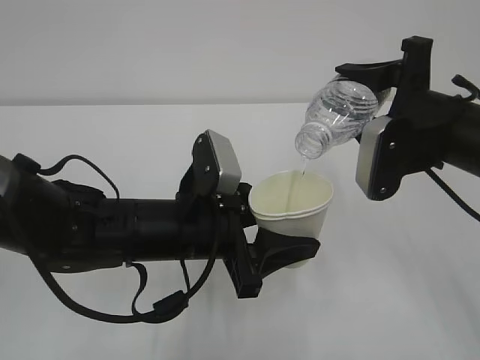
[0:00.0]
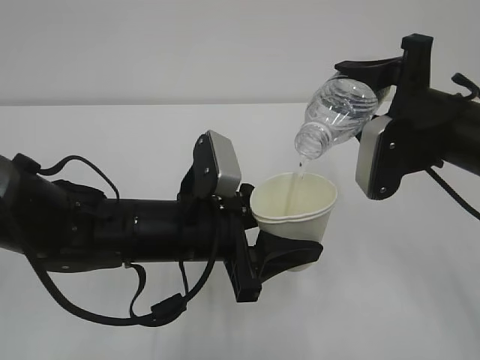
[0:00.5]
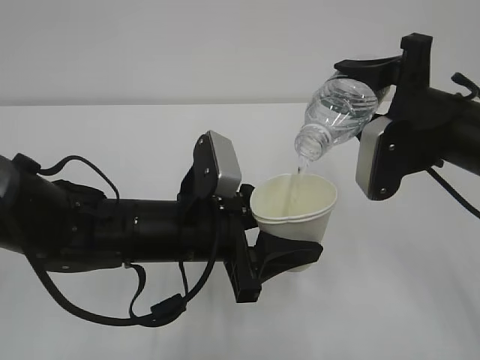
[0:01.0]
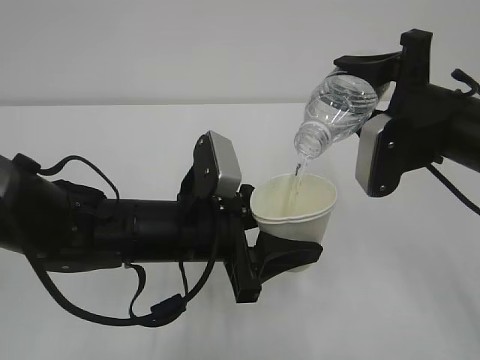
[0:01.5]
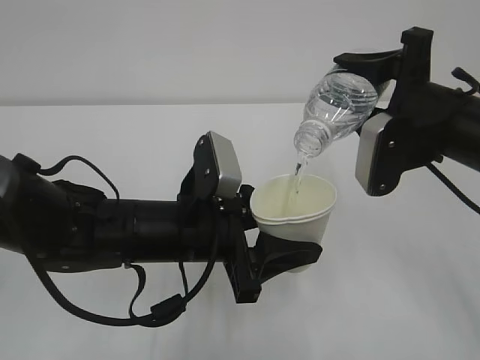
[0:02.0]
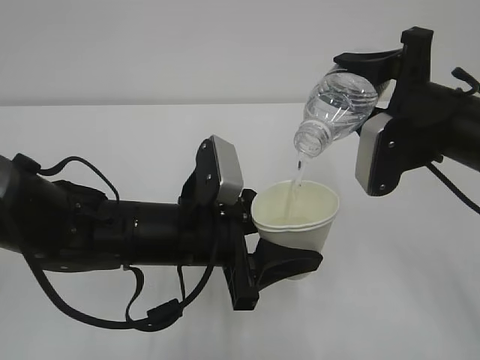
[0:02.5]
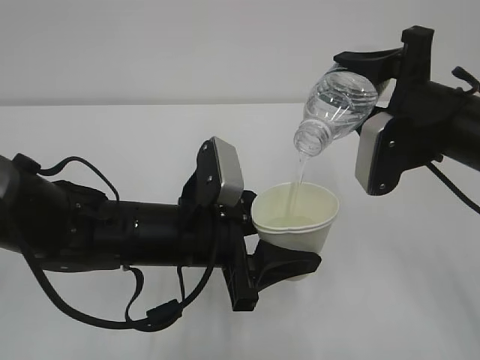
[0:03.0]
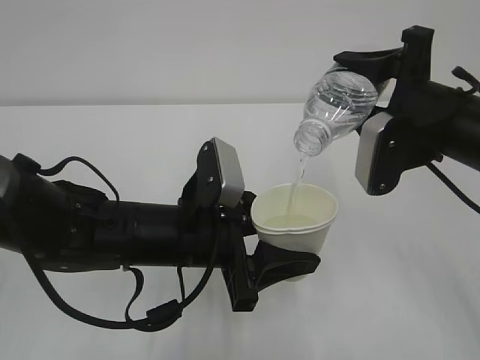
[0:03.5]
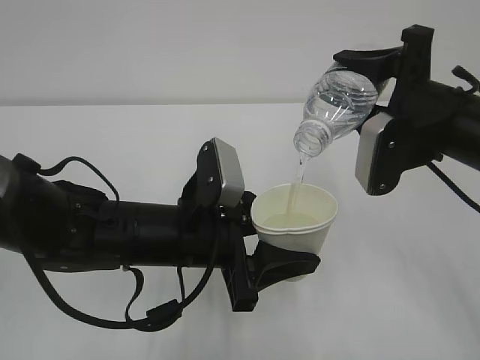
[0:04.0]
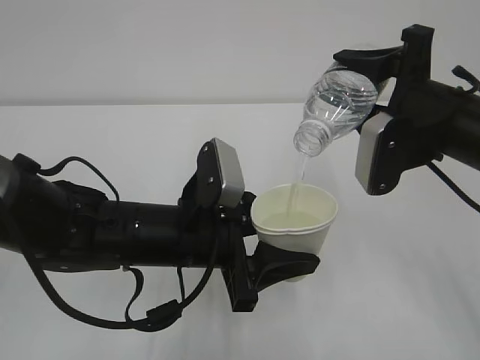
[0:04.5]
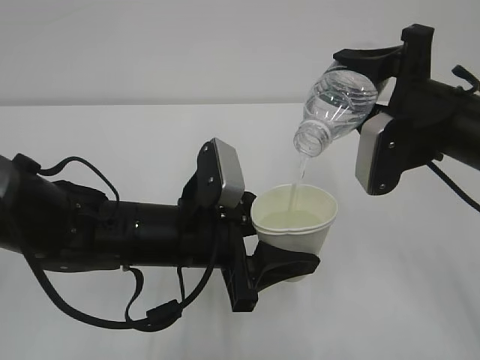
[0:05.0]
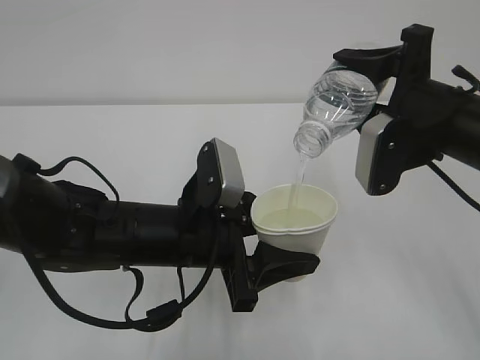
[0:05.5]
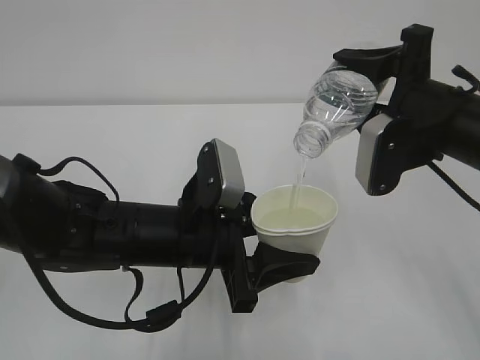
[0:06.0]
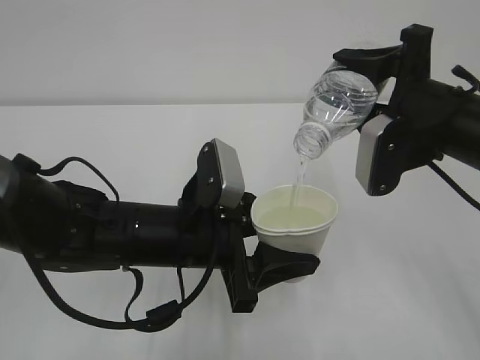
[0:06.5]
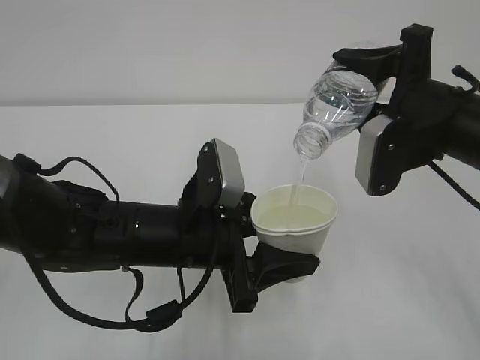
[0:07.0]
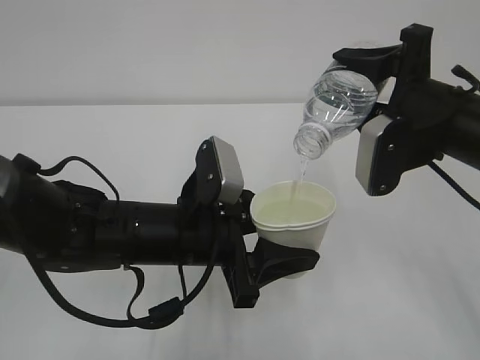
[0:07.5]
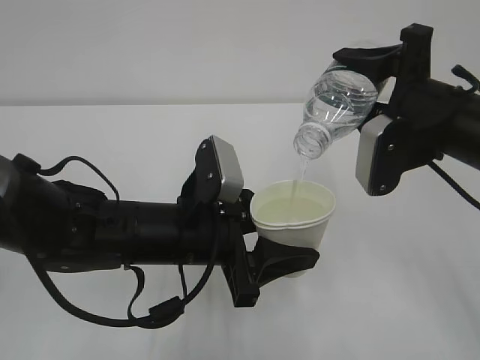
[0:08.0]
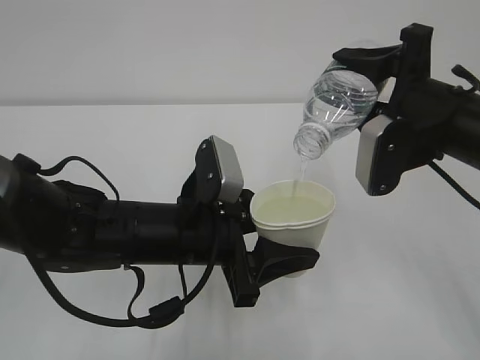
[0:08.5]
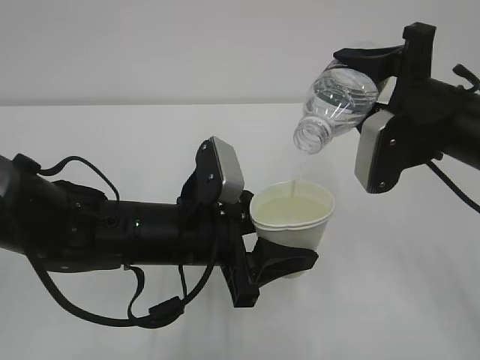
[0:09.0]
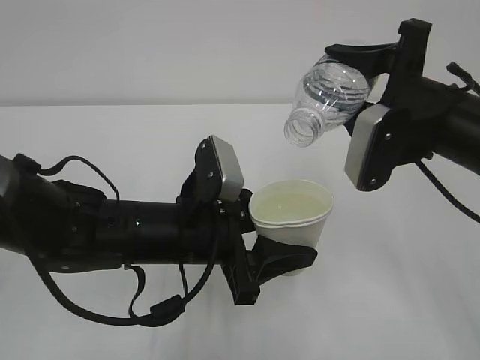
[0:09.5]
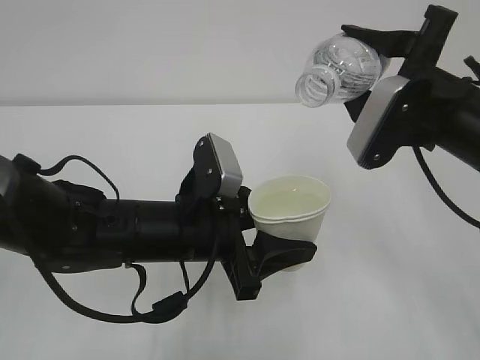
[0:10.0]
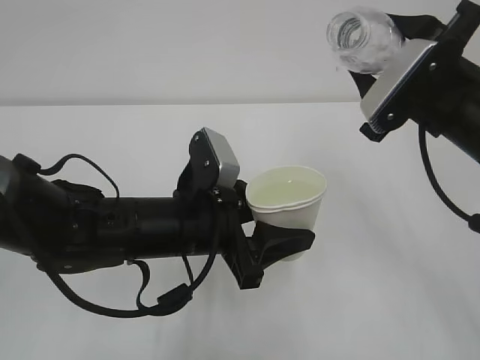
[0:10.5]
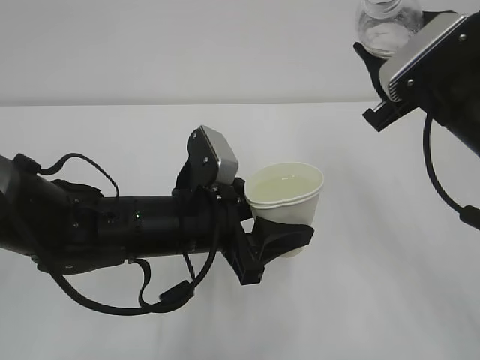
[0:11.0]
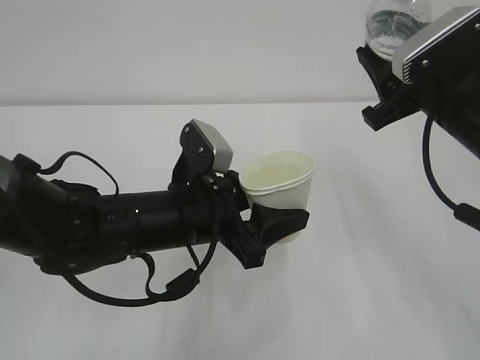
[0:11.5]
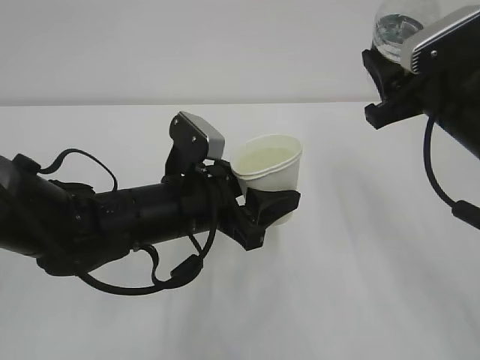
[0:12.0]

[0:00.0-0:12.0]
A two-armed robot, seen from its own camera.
0:00.0 to 0:02.0: Both grippers stay about where they are.
0:02.0 to 0:08.0: Both grippers stay about where they are.
0:08.0 to 0:10.0: The grippers stay close to where they were, moving slightly.

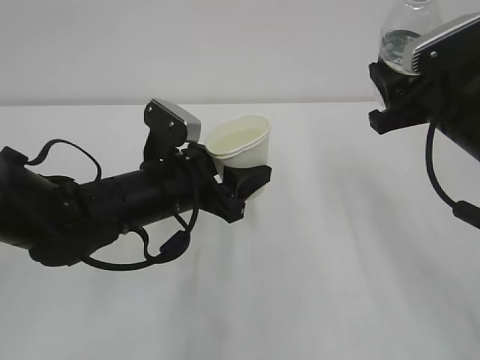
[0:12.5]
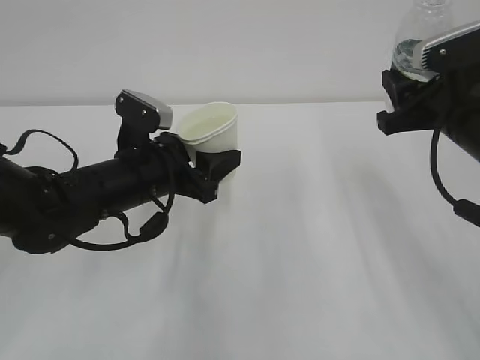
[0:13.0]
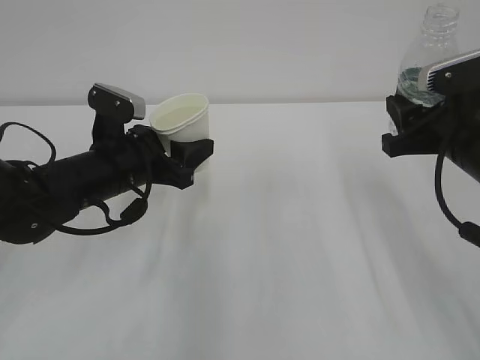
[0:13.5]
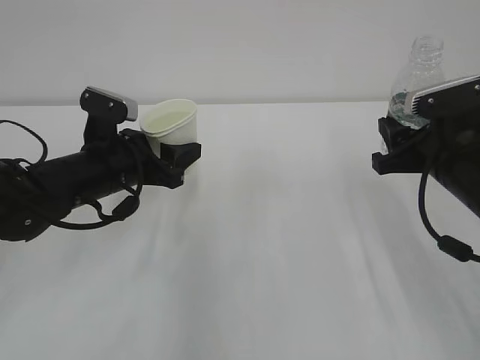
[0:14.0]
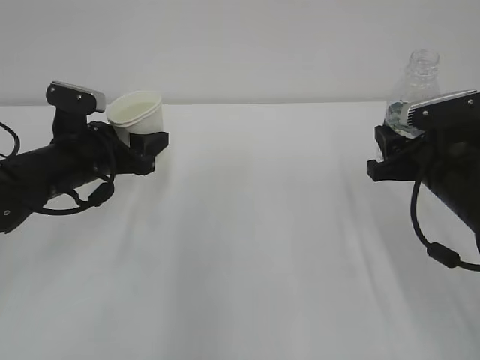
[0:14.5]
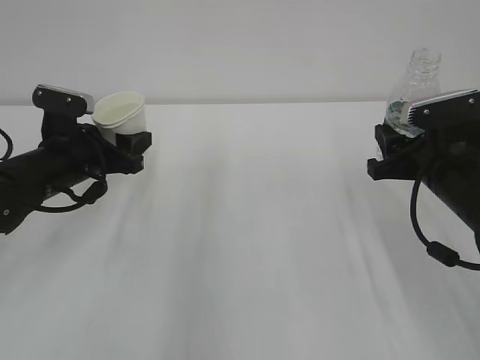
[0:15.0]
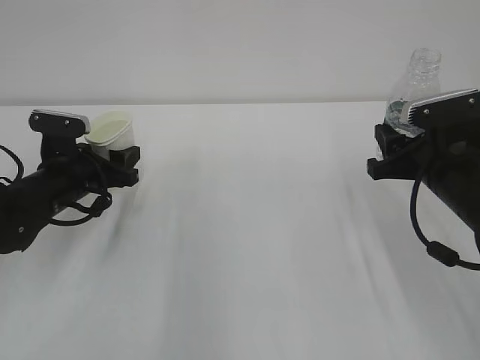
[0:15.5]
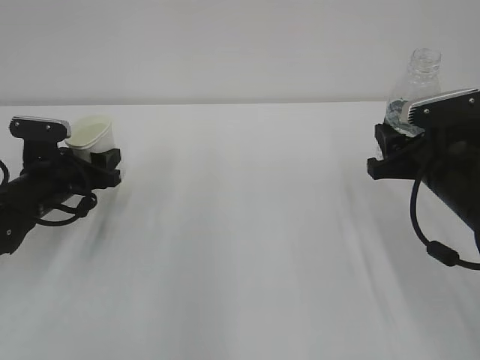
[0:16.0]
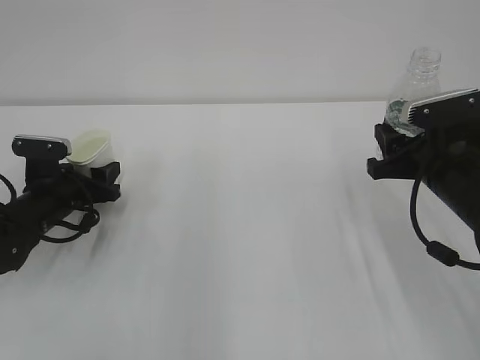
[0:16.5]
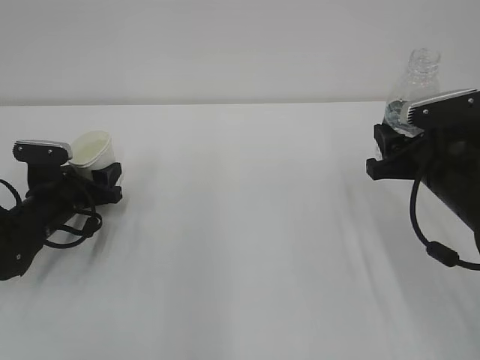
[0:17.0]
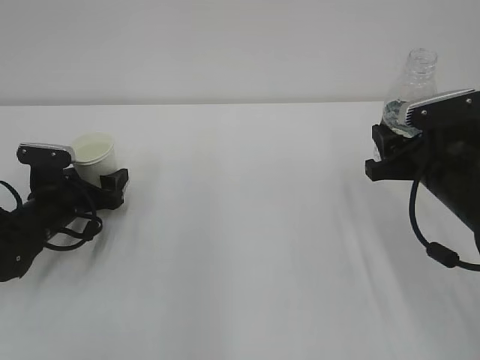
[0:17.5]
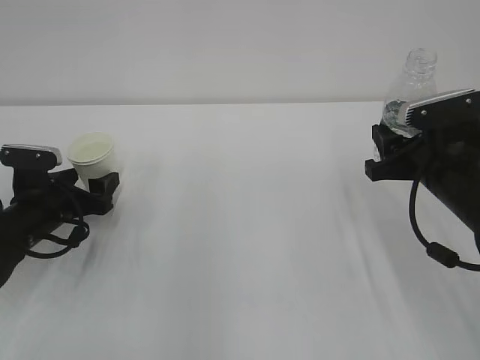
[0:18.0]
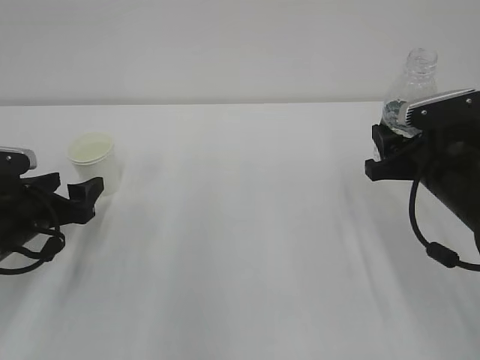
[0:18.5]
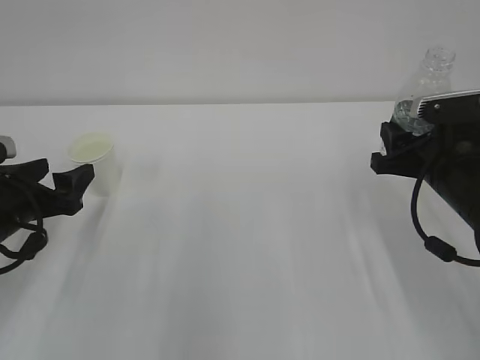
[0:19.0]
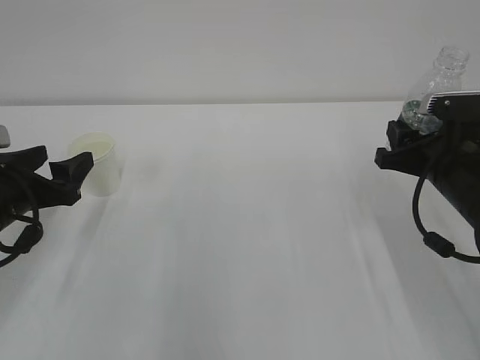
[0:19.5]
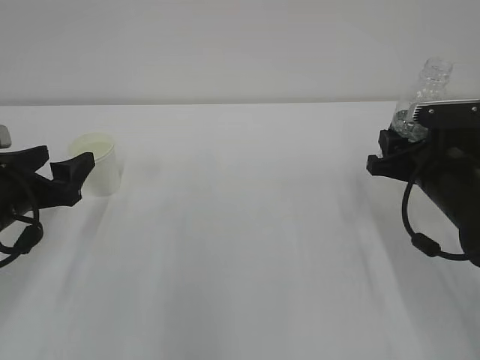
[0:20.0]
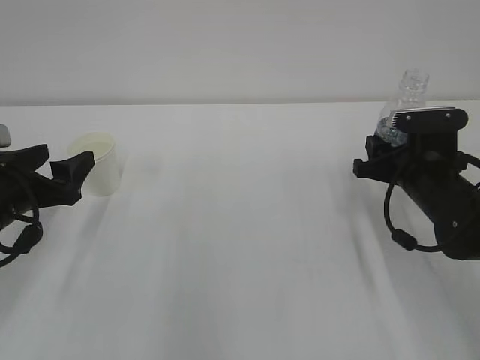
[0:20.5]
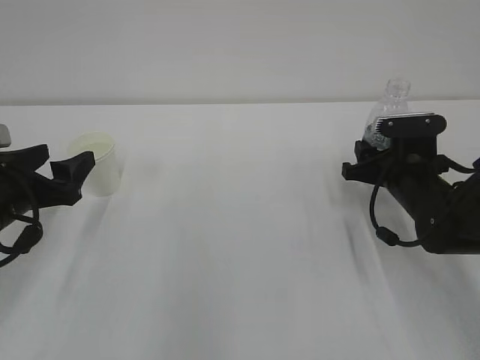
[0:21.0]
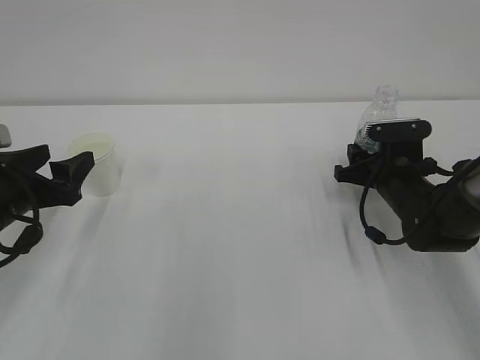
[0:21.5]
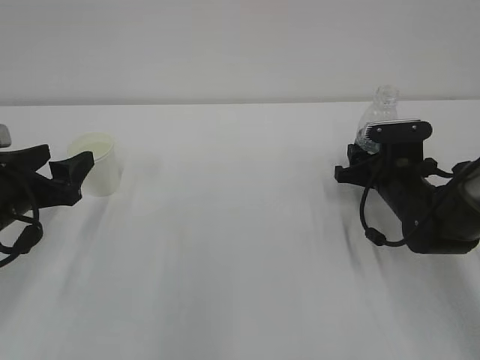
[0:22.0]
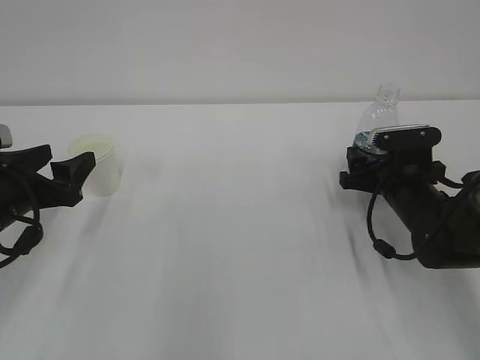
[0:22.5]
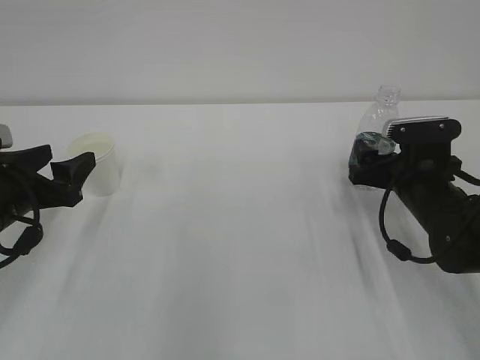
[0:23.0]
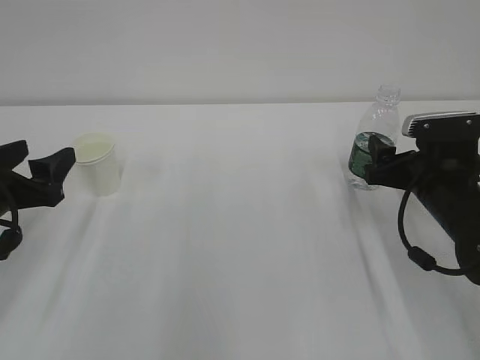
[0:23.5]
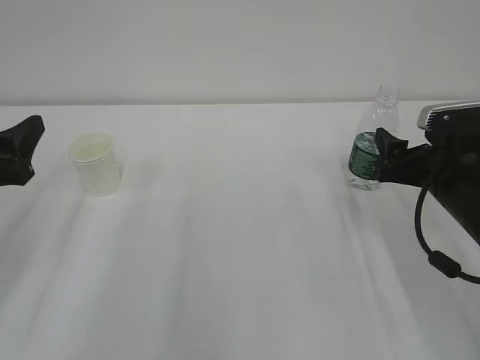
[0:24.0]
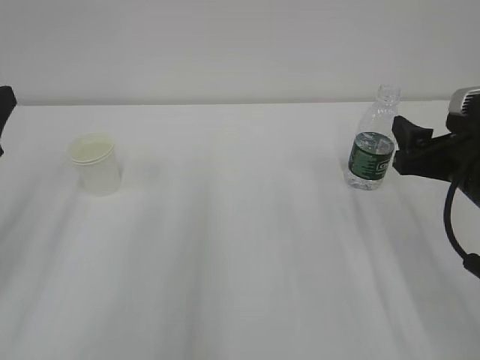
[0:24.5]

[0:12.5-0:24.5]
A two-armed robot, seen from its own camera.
0:12.5 to 0:14.5: The right gripper shifts roughly 10 cm downward, while the left gripper is displaced to the left and forward by about 15 cm.
0:14.5 to 0:16.5: The left gripper goes roughly 10 cm downward and to the left.
0:16.5 to 0:18.5: The left gripper heads backward, covering about 5 cm, and opens up.
0:18.5 to 0:20.5: The left gripper moves about 5 cm. The right gripper changes place by roughly 5 cm.
0:20.5 to 0:22.5: The right gripper opens its fingers.
0:22.5 to 0:24.5: The grippers both shift upward and backward by about 15 cm.

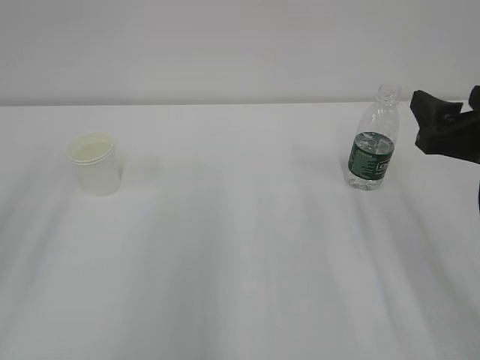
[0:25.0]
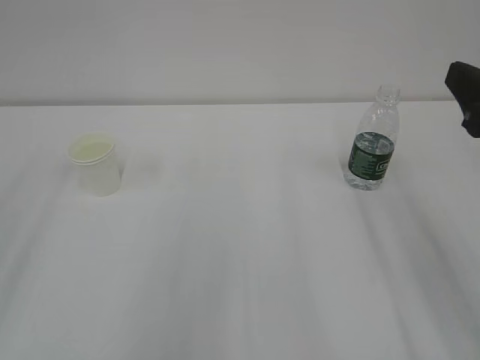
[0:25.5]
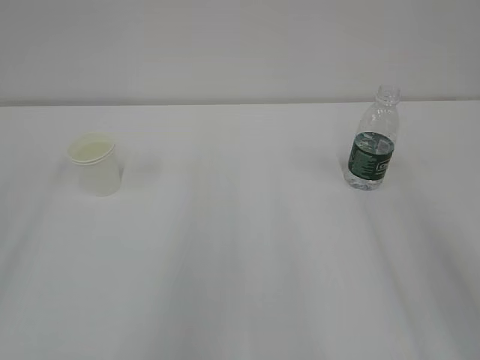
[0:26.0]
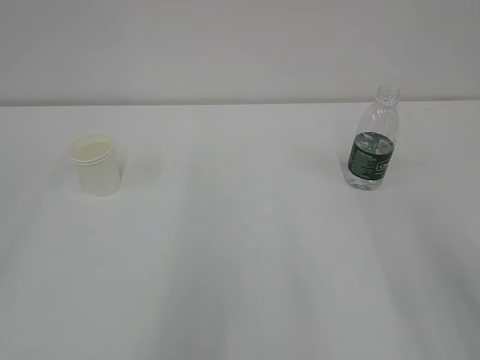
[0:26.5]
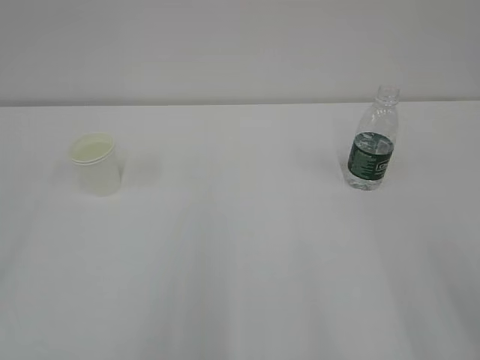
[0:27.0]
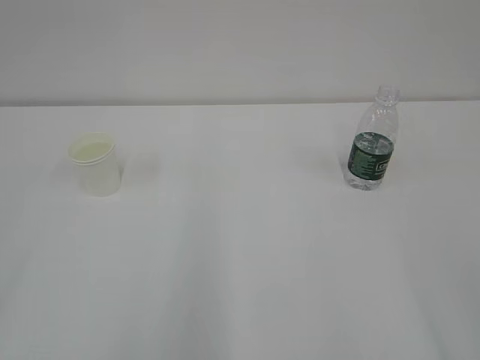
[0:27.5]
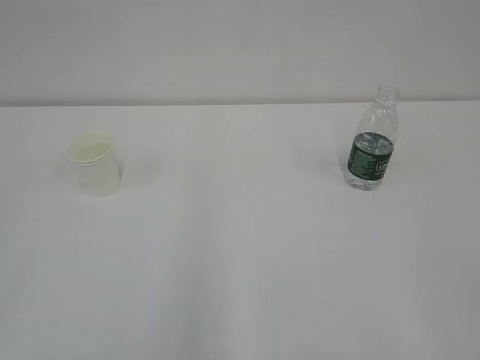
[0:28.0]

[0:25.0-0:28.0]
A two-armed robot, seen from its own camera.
0:25.0 to 0:26.5: The right gripper goes some 15 cm backward and upward.
